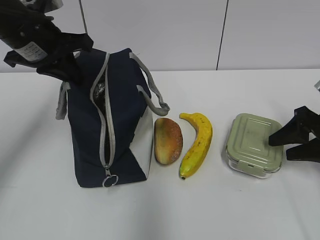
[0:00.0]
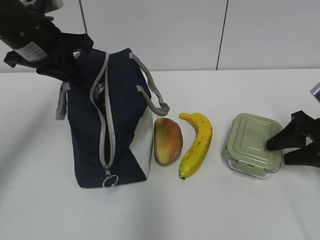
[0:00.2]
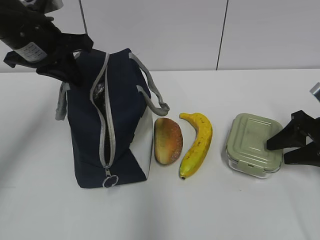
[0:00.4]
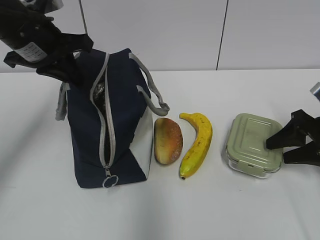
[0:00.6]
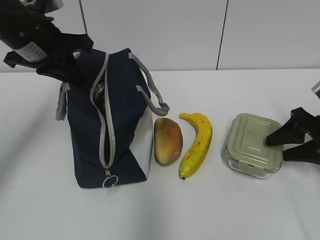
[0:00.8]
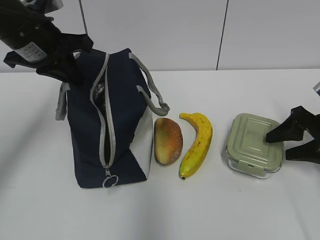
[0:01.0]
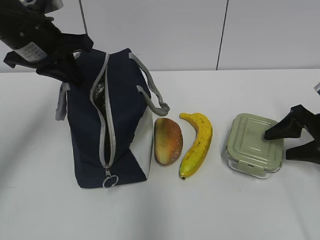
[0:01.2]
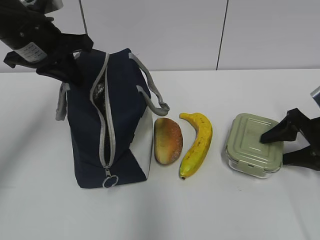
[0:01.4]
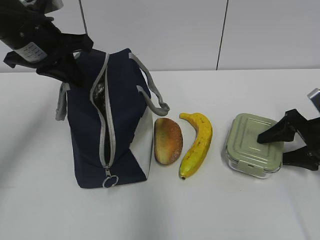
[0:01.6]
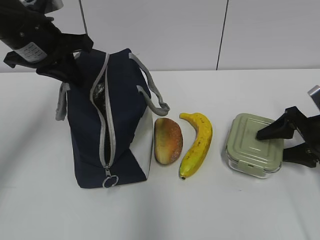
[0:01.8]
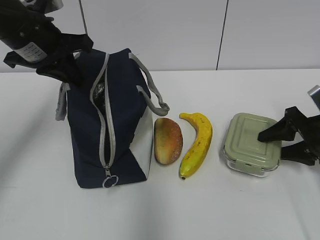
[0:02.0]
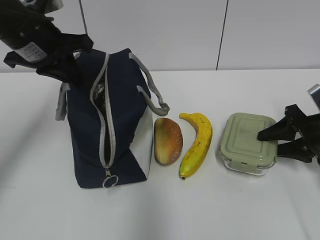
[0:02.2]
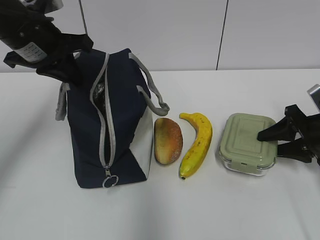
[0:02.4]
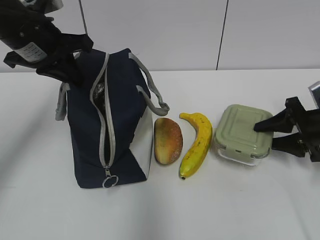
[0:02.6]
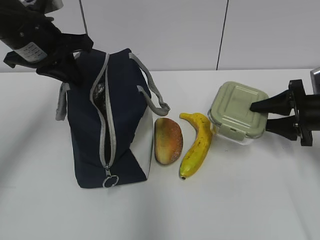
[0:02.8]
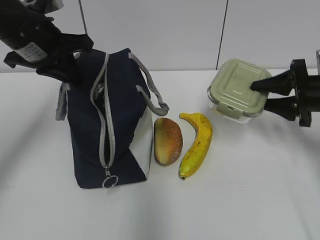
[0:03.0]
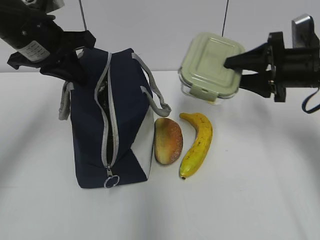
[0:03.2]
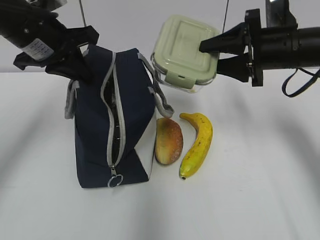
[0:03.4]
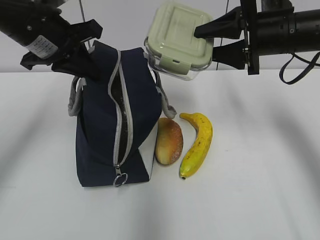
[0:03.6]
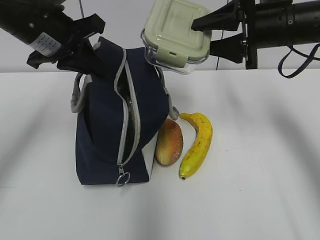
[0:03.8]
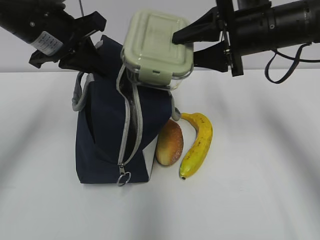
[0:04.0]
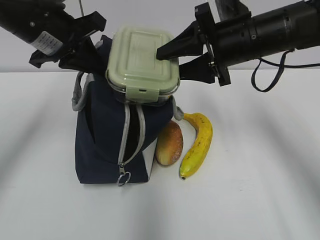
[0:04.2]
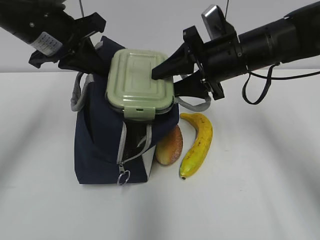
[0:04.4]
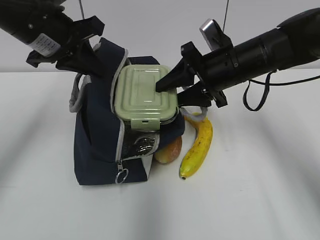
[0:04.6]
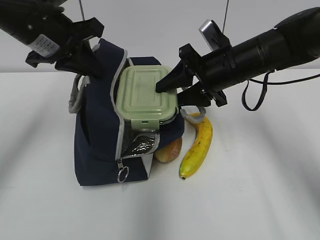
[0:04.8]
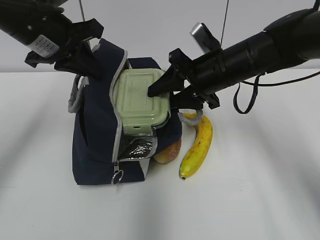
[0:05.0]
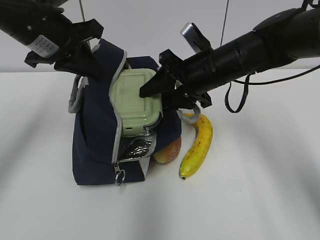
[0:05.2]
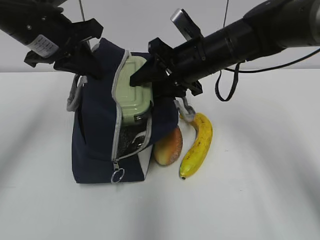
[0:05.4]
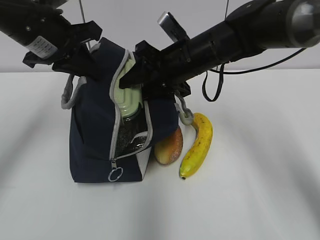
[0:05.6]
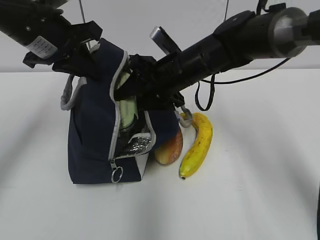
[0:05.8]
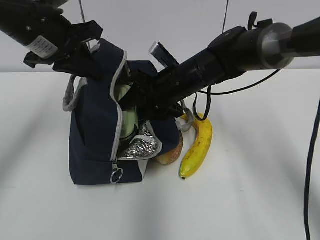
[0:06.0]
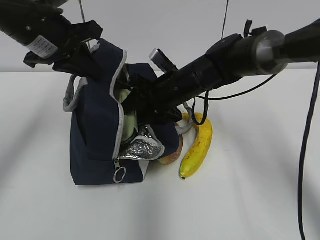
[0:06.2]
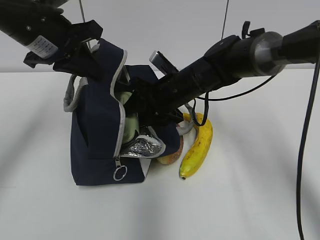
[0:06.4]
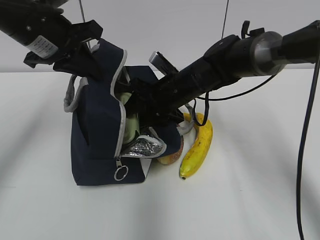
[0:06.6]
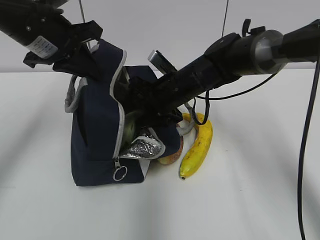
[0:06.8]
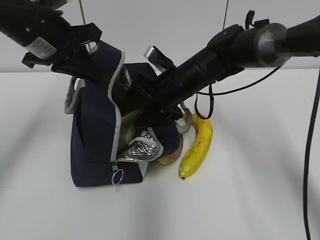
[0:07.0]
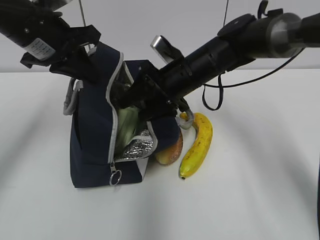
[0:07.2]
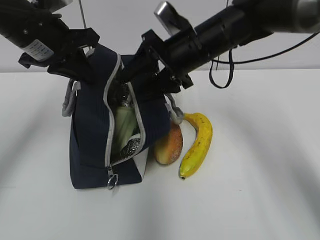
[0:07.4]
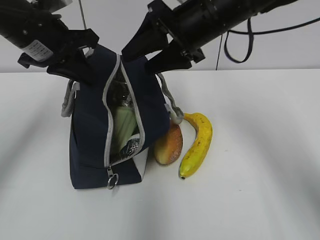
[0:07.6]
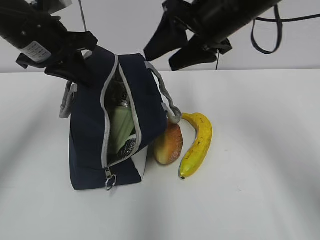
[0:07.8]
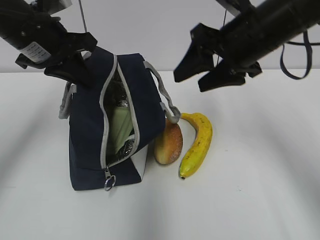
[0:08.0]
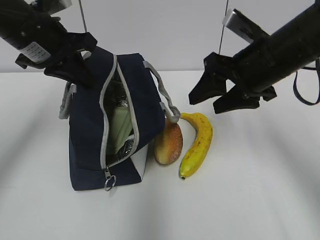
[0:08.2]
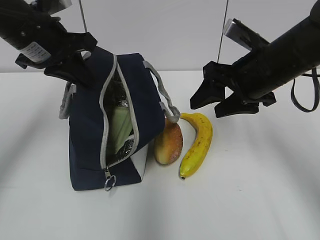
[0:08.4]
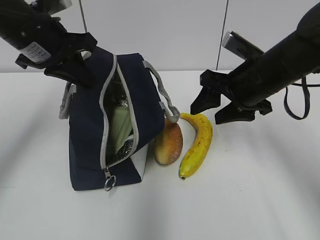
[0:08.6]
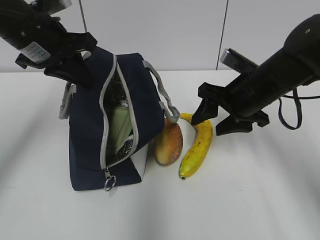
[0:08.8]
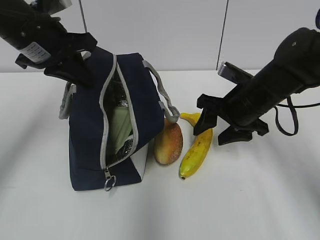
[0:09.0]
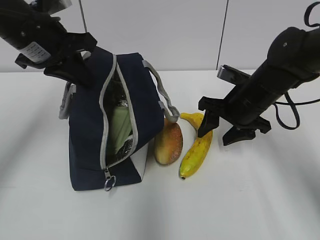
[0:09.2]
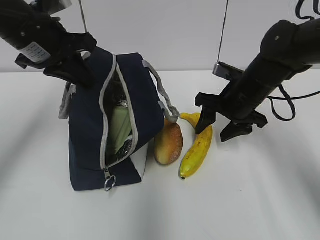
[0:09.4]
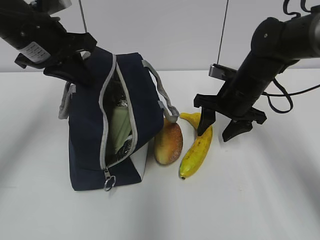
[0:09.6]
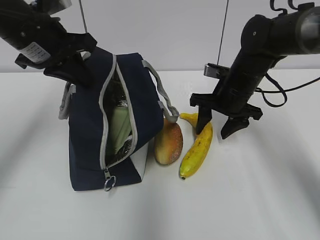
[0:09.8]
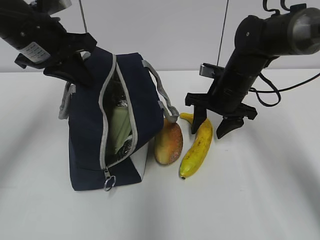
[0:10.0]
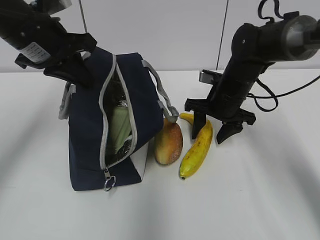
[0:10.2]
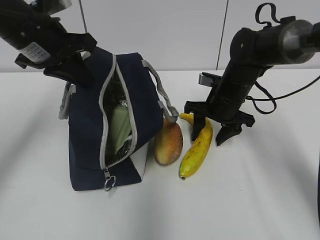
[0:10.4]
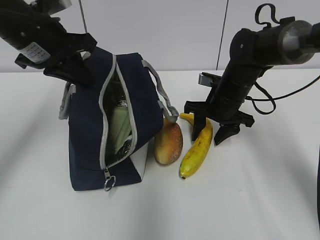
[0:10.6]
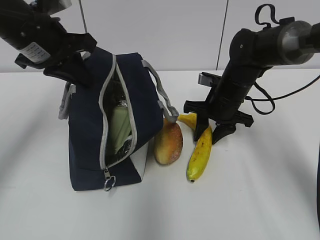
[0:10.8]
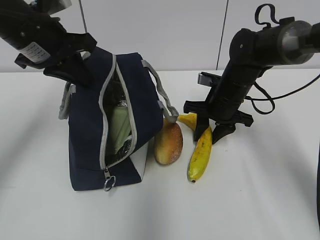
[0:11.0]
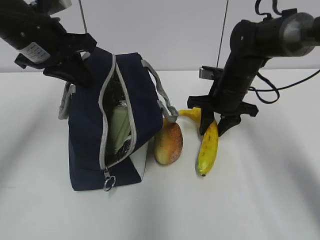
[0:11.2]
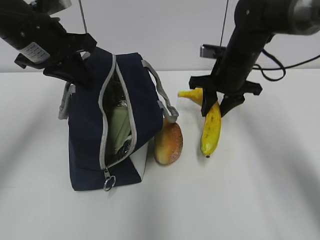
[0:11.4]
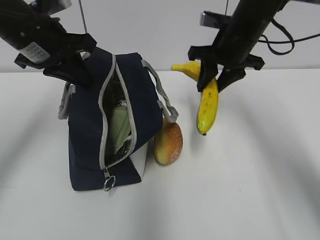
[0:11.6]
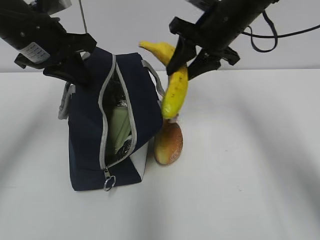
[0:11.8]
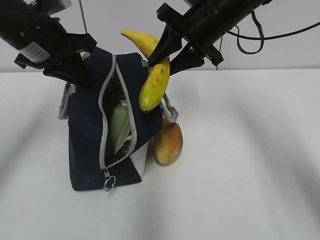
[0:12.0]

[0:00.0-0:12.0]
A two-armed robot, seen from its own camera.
0:00.0 to 0:01.6: The grippers make only small movements.
0:01.6 to 0:03.0: The right gripper moves upward, about 5 cm.
0:03.0 to 0:04.4: The right gripper is displaced to the left and upward by approximately 20 cm.
0:04.4 to 0:06.0: The right gripper goes about 10 cm to the left and downward.
0:06.0 to 0:07.6: The right gripper shifts approximately 10 cm upward.
0:07.6 to 0:09.0: The right gripper moves downward and to the right, about 15 cm.
0:09.0 to 0:10.4: The right gripper shifts approximately 5 cm forward.
0:10.4 to 0:12.0: The right gripper goes some 15 cm upward.

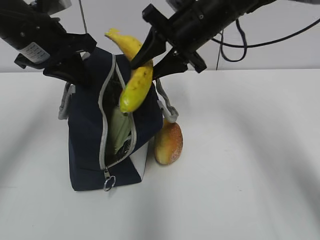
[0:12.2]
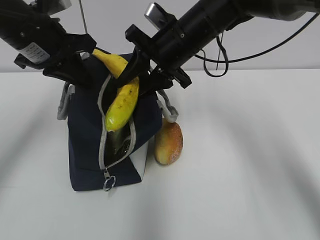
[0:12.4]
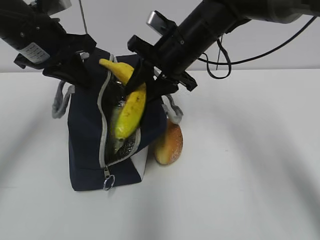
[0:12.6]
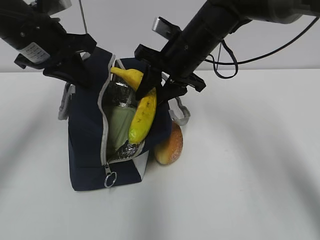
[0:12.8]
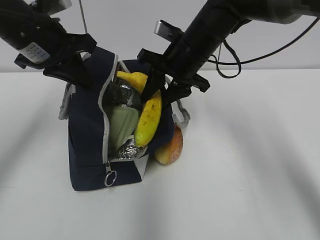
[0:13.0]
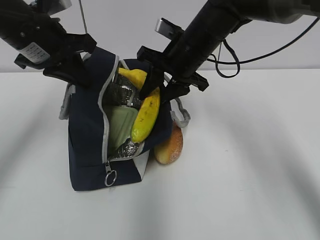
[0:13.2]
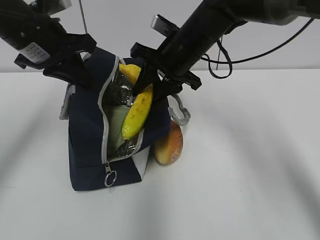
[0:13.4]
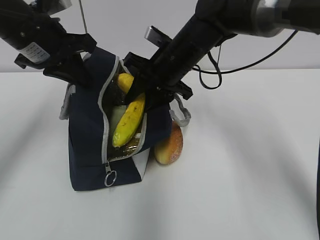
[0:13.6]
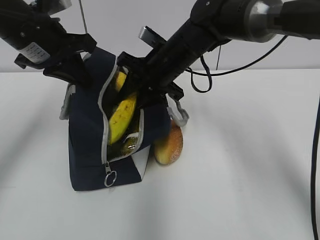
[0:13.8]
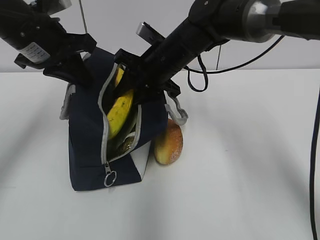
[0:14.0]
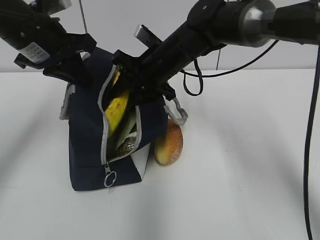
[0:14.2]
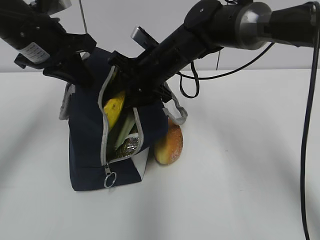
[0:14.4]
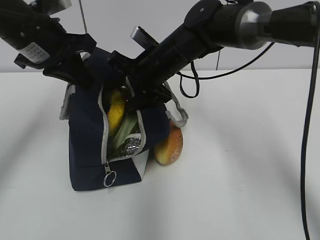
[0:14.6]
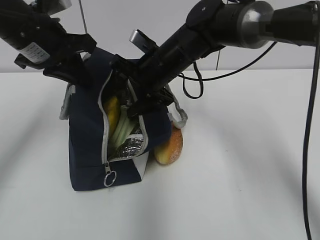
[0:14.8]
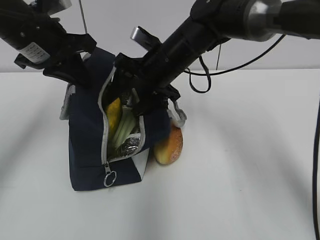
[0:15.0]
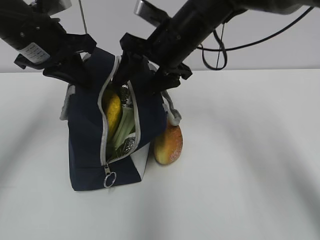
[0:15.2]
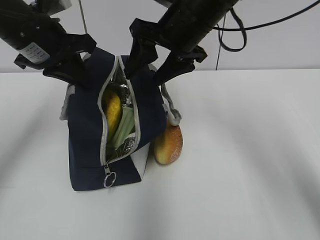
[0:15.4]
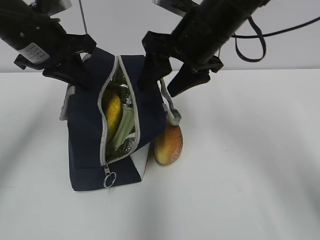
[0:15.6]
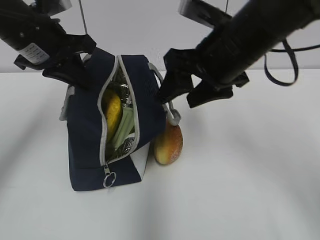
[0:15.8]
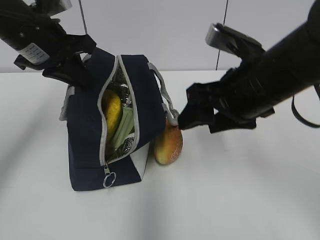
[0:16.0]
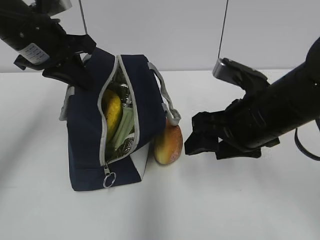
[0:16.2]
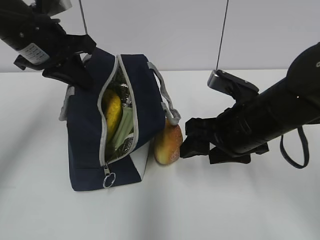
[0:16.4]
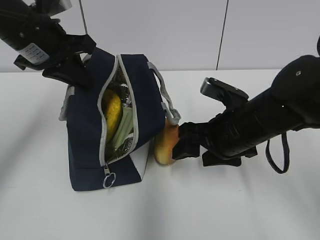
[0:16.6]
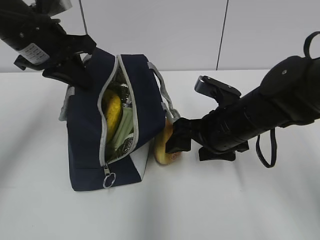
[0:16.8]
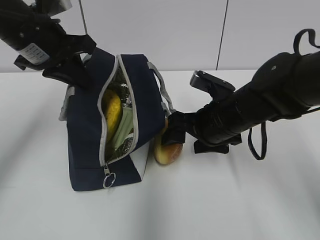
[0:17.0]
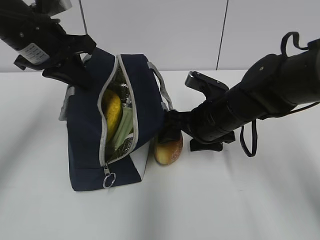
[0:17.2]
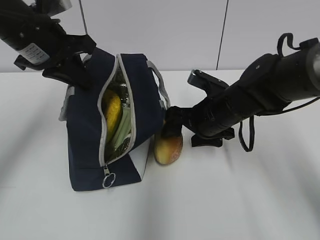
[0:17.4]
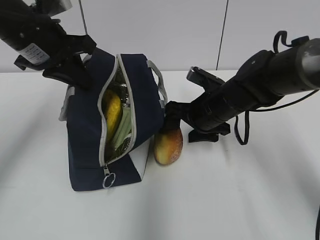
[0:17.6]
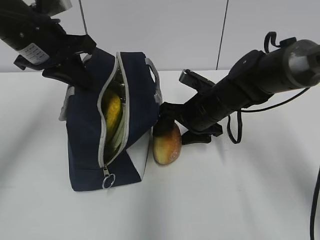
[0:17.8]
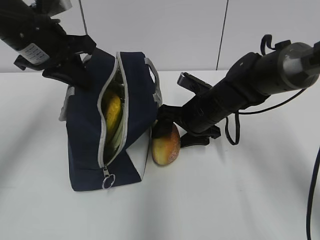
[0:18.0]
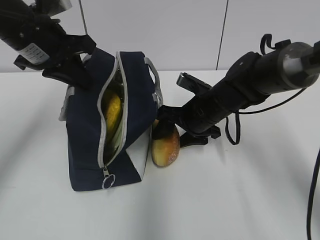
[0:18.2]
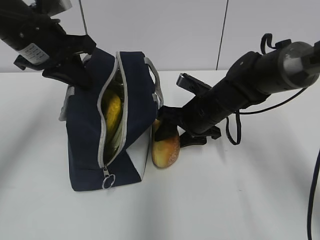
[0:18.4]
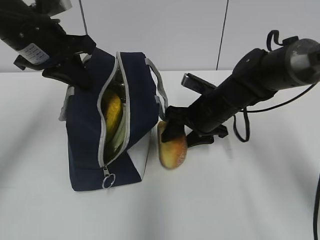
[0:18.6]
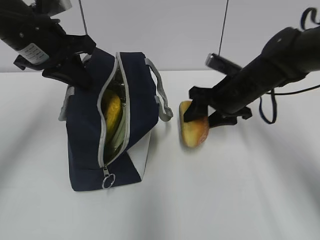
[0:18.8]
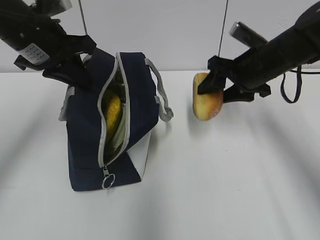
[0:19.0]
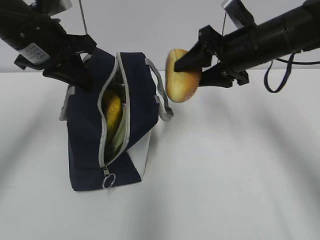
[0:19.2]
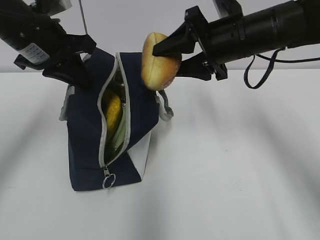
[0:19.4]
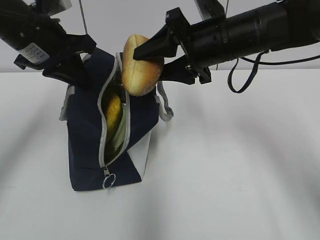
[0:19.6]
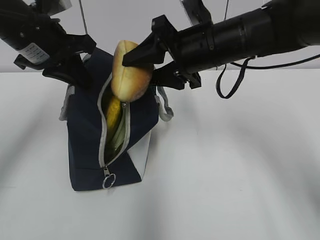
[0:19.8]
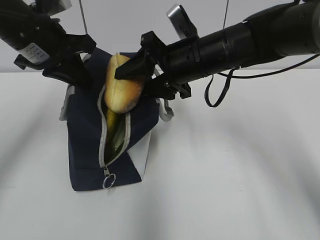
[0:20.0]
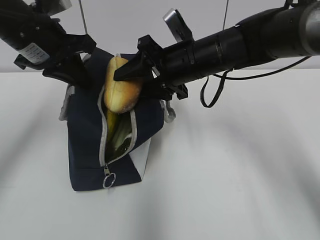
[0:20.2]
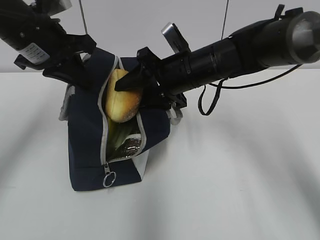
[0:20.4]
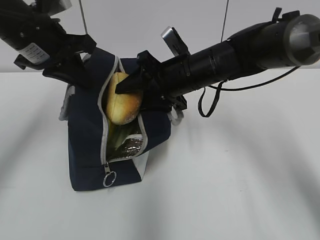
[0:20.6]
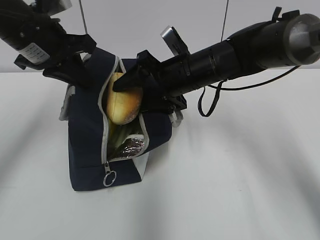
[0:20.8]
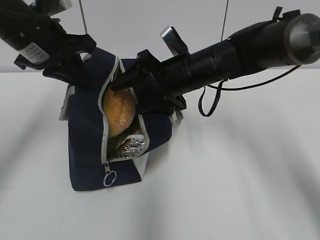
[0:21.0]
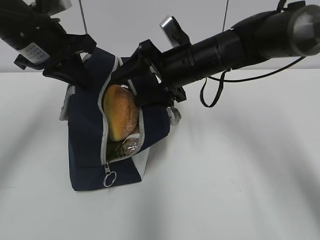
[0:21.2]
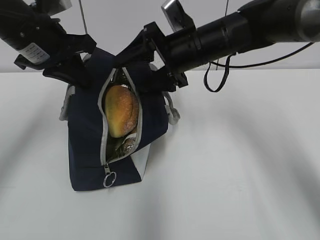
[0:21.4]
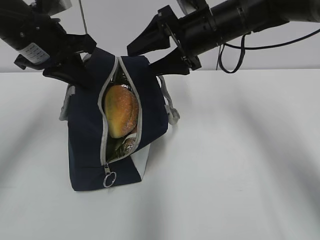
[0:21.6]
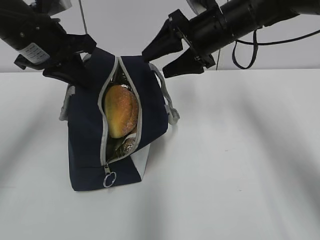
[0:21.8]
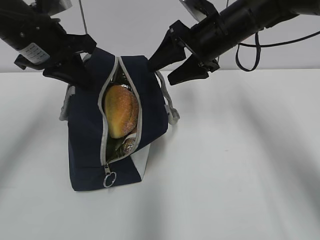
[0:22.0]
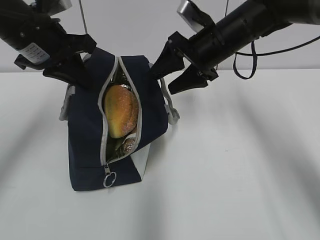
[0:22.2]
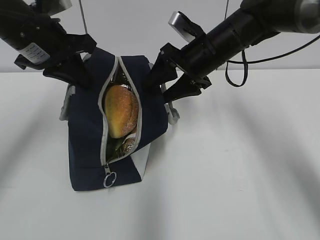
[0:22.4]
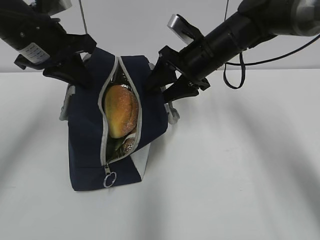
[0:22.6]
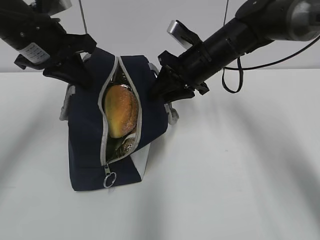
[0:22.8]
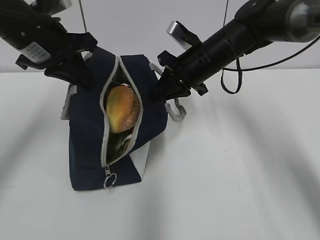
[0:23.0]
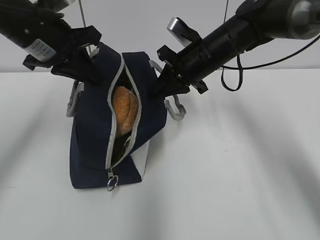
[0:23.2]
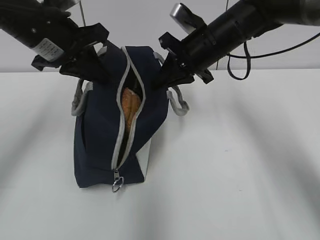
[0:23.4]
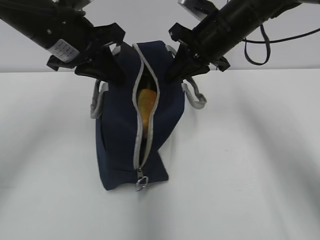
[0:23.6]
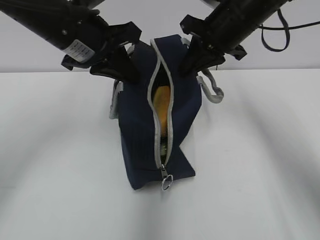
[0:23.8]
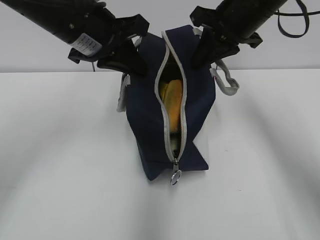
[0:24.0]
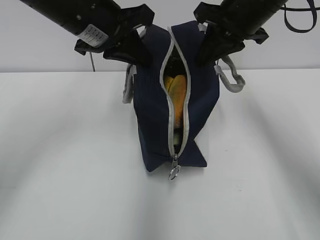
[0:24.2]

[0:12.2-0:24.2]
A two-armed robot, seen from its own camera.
0:12.2 to 0:13.8: The right gripper travels downward by some 5 cm.
0:13.8 to 0:15.2: The right gripper changes place by roughly 5 cm, and opens up.
0:15.2 to 0:16.6: The right gripper heads backward, downward and to the right, covering about 15 cm.
0:16.6 to 0:18.2: The right gripper moves forward, approximately 10 cm.
0:18.2 to 0:19.8: The right gripper goes approximately 15 cm upward.
0:19.8 to 0:21.2: The right gripper ends up about 5 cm from where it was.
0:22.6 to 0:24.2: The left gripper heads to the right, covering about 10 cm; the right gripper travels upward by roughly 10 cm, and closes.
